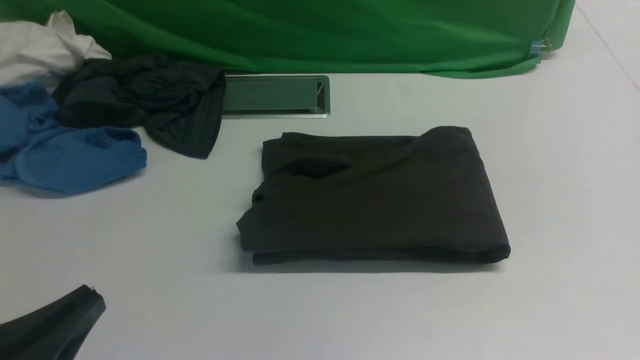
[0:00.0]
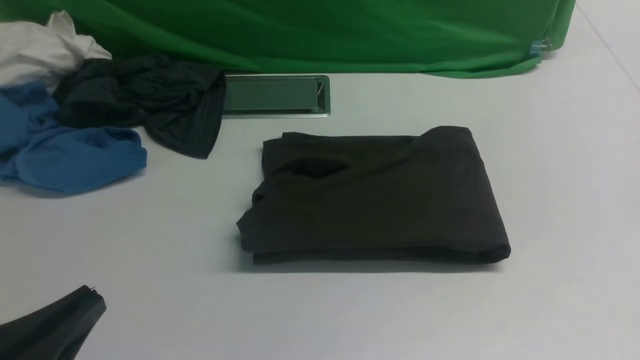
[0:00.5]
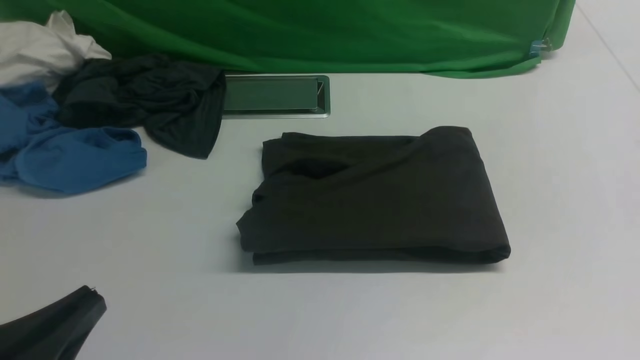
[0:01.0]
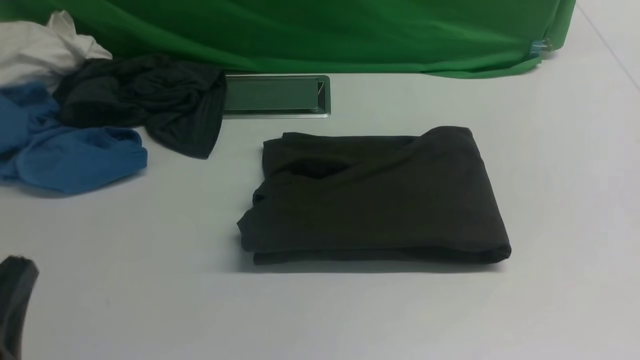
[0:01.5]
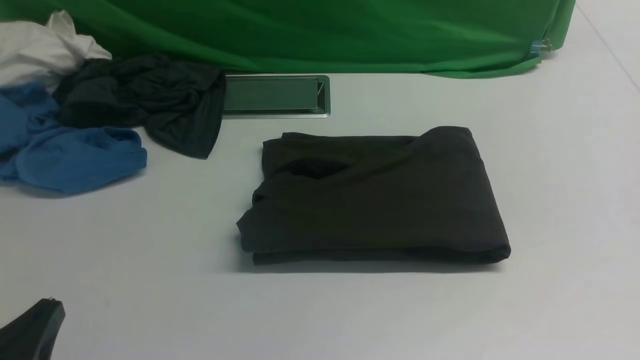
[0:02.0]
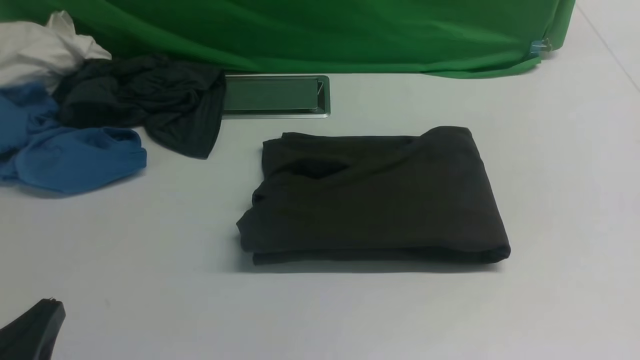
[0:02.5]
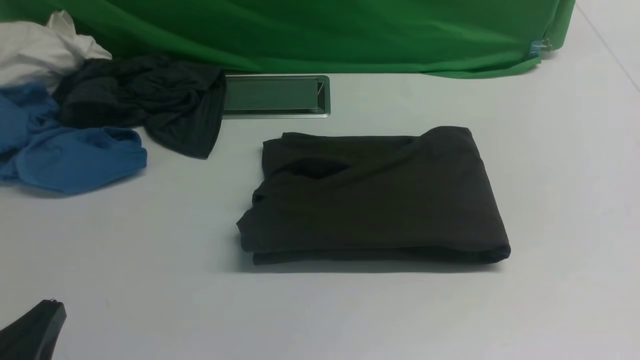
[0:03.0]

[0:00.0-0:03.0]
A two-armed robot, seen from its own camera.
0:00.0 to 0:01.5: The grippers move only a little.
0:01.5 to 0:03.0: The grippers move only a little.

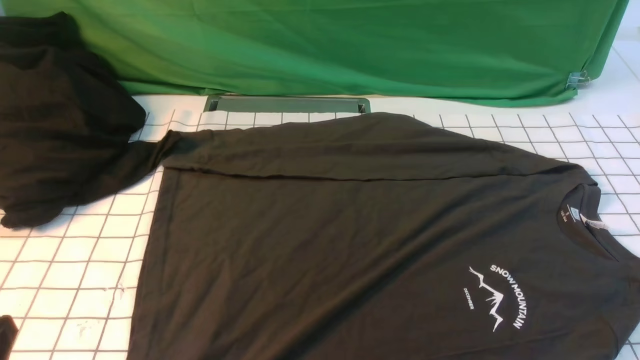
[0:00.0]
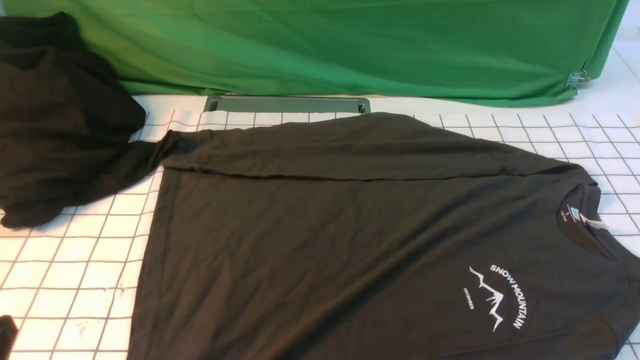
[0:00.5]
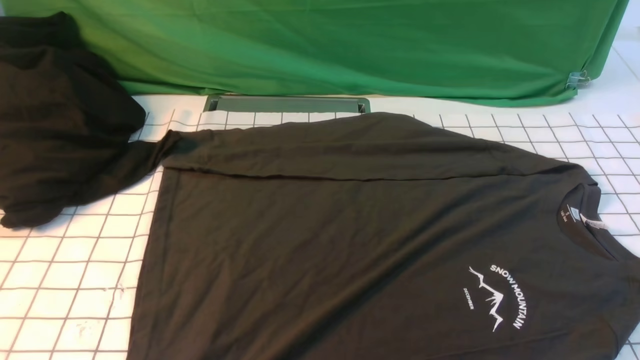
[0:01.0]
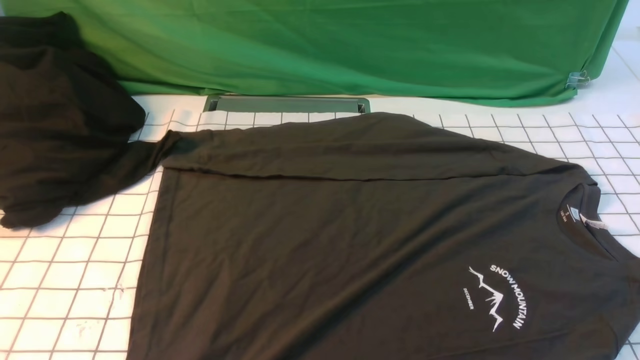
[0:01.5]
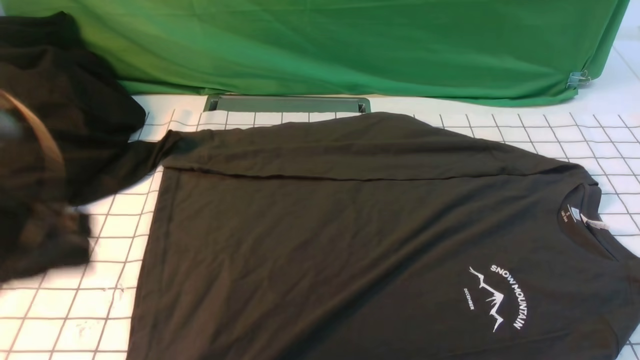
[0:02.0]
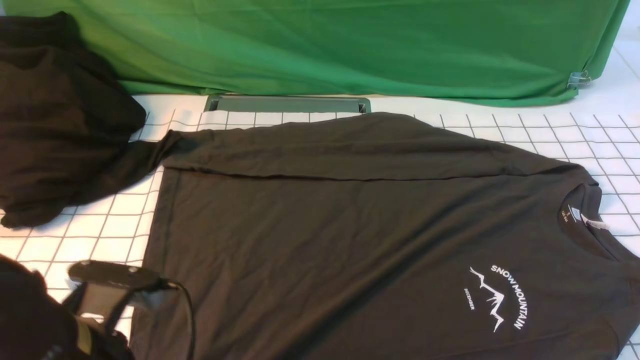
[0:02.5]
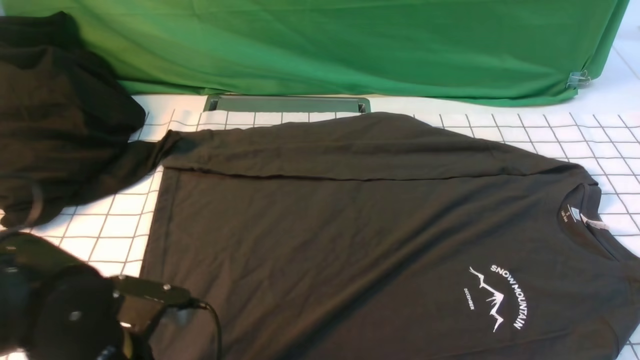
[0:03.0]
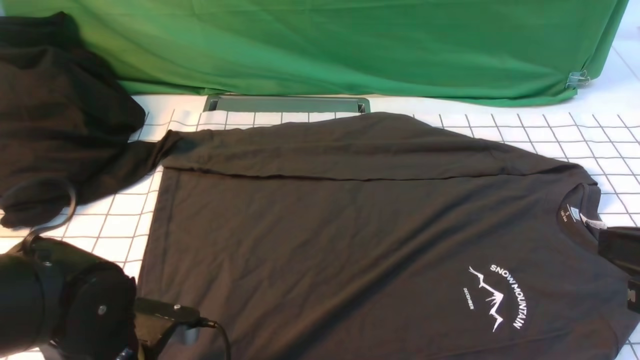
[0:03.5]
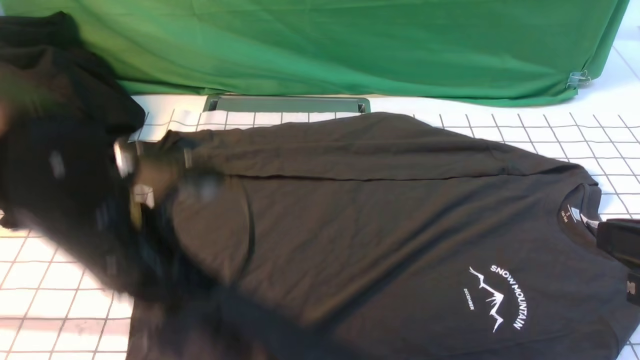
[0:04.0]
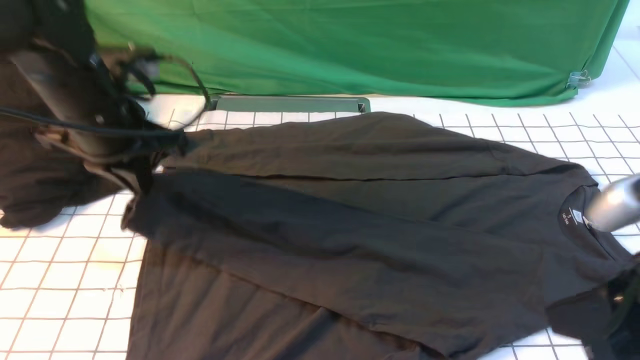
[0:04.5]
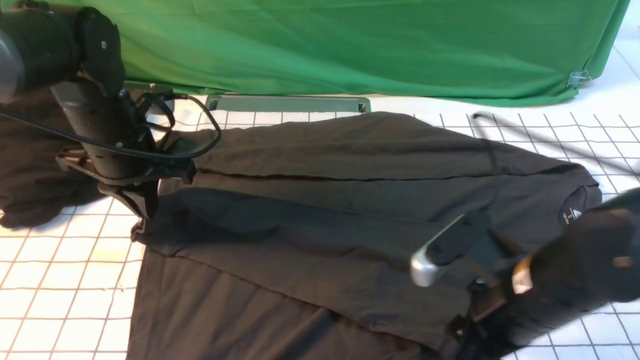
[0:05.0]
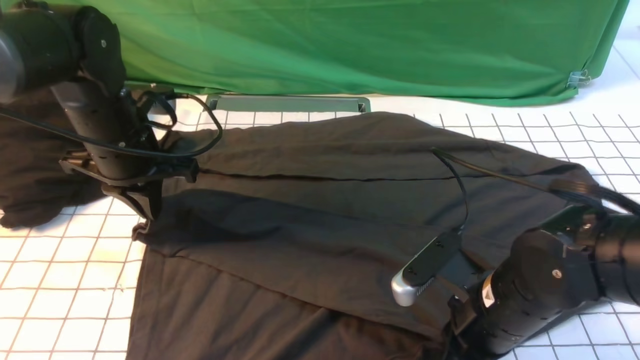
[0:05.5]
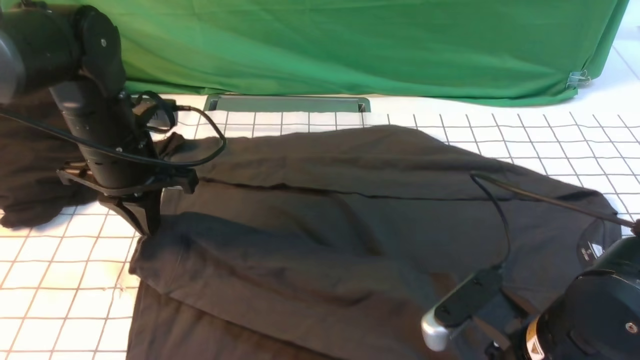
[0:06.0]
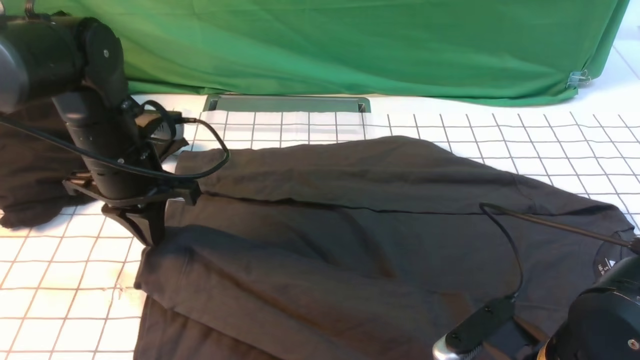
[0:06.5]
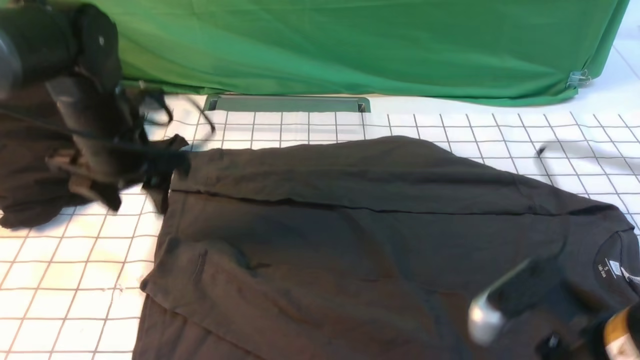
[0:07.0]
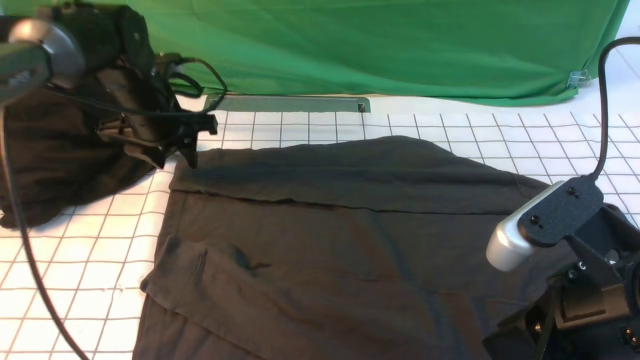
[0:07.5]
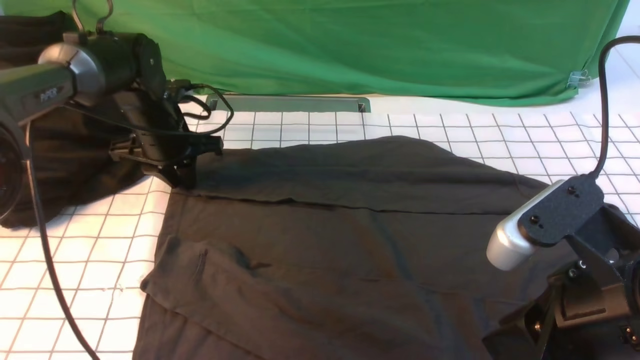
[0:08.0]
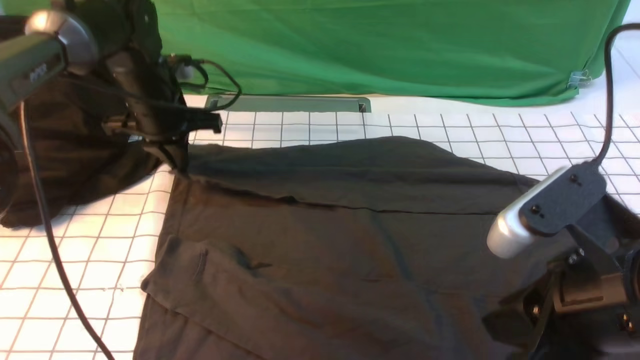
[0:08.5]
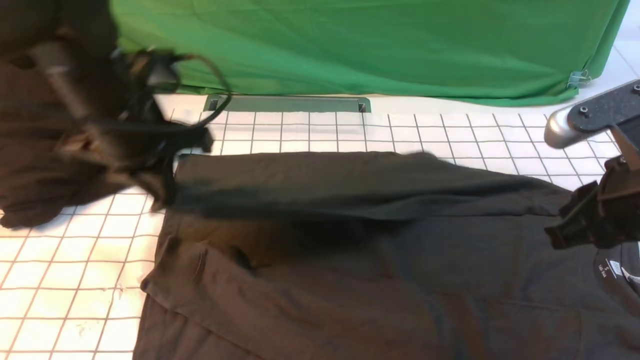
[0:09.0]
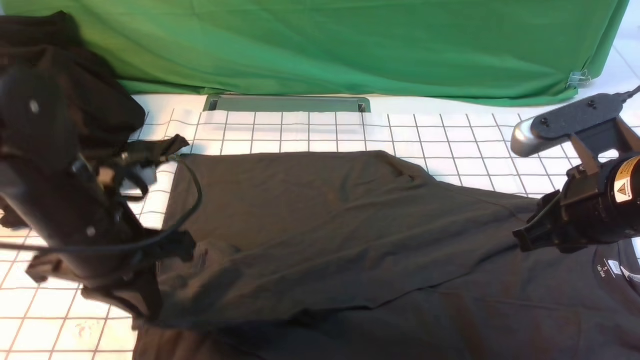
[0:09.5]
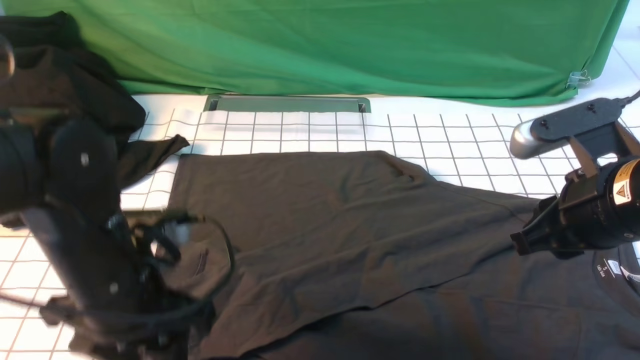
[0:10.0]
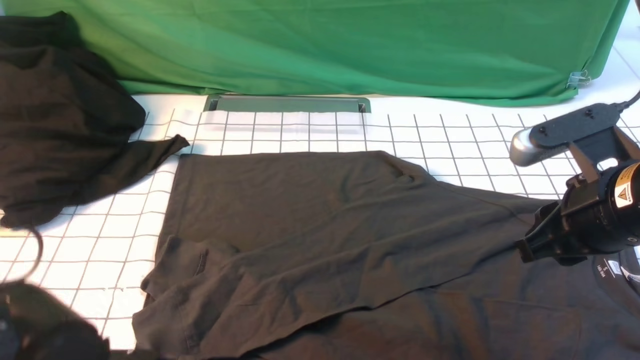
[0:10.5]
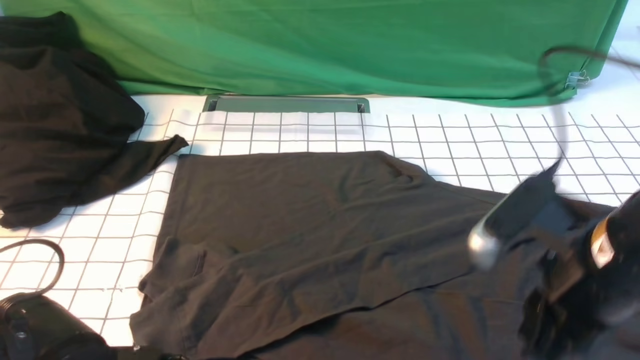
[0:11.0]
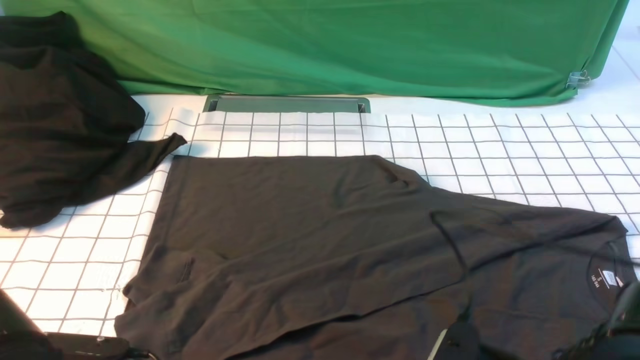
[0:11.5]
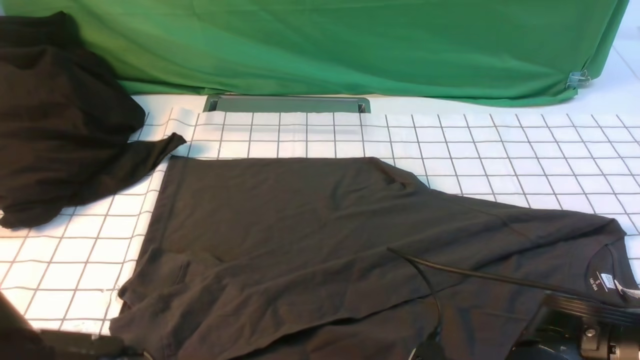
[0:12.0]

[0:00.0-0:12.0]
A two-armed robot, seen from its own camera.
Step, 0:00.0 to 0:03.5: use the left arm to clamp the cuff closest to it.
Step, 0:04.0 to 0:06.5: use the left arm to drag and place the cuff at the centered position on the left edge of the fabric.
Step, 0:07.0 to 0:08.0: use the left arm to clamp the cuff farthest from it.
Step, 0:08.5 to 0:10.0: use the left arm to drag and drop the cuff onto the cuff closest to the left arm.
0:00.0 to 0:02.0: The left gripper moves forward and upward, some 15 cm.
0:02.0 to 0:04.0: The left gripper shifts approximately 10 cm to the right and forward, reaches about 15 cm downward, then returns, and opens and closes again; the right gripper heads upward, forward and to the left, covering roughly 15 cm, and closes.
0:04.0 to 0:06.0: The right gripper heads downward and to the left, covering some 15 cm, and opens, then closes once more; the left gripper travels forward and to the left by approximately 15 cm.
0:06.0 to 0:08.0: The left gripper is displaced forward and downward by approximately 10 cm, and opens up, while the right gripper is displaced upward by some 10 cm.
0:08.0 to 0:10.0: The left gripper is displaced backward by approximately 25 cm, and opens its fingers. Meanwhile the right gripper moves forward, approximately 10 cm.
0:10.0 to 0:12.0: The right gripper travels backward, downward and to the left by approximately 20 cm, and opens, then closes once more; the left gripper shifts approximately 10 cm backward, and closes.

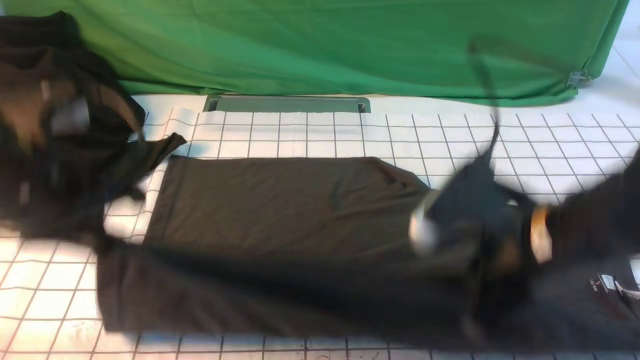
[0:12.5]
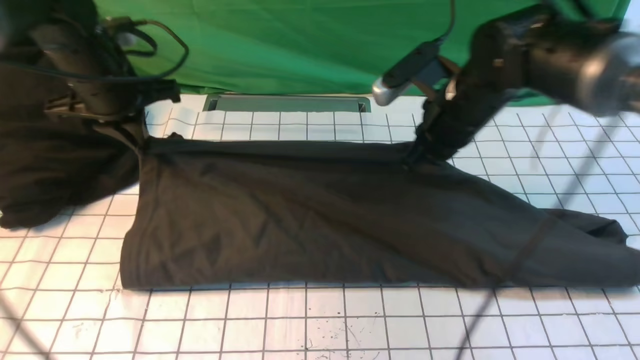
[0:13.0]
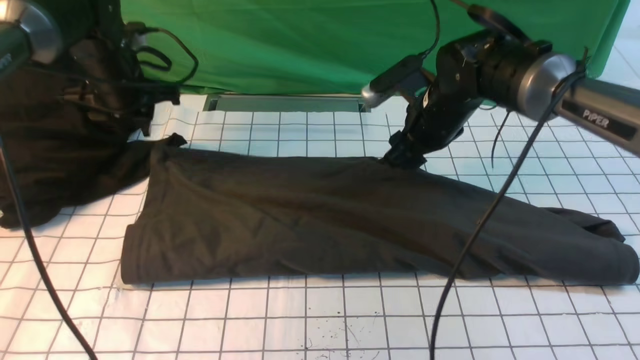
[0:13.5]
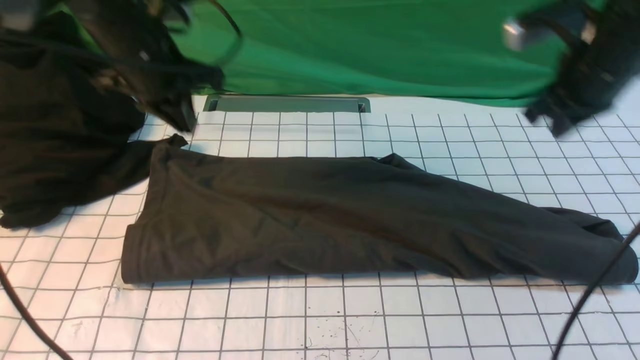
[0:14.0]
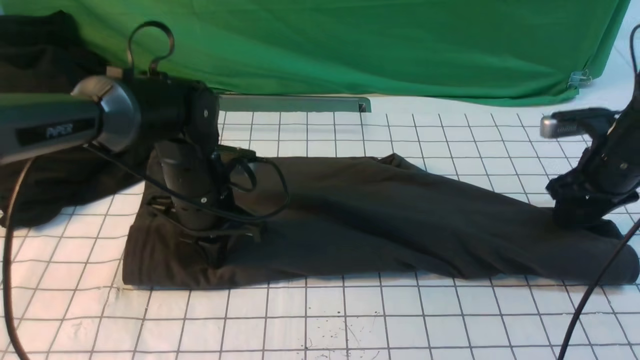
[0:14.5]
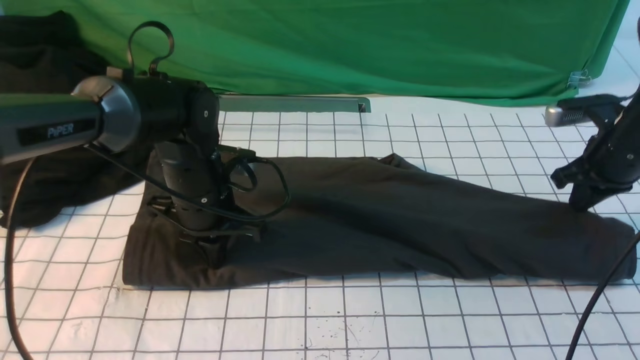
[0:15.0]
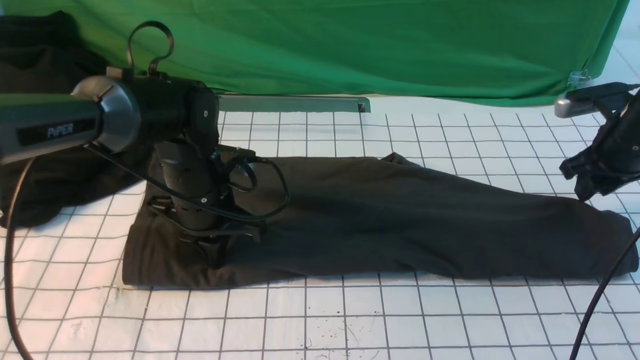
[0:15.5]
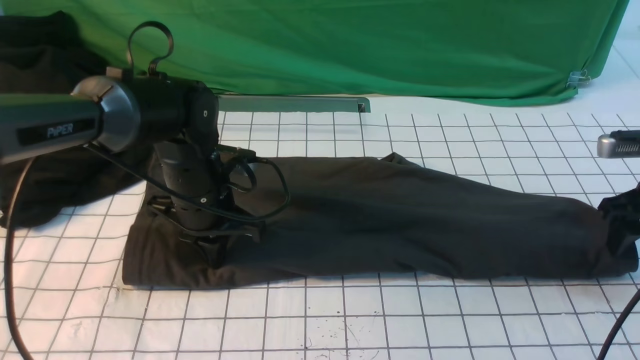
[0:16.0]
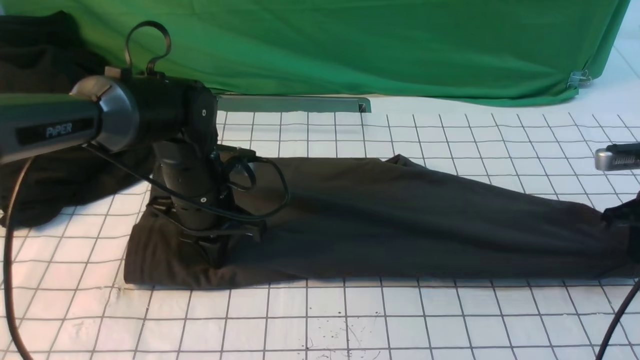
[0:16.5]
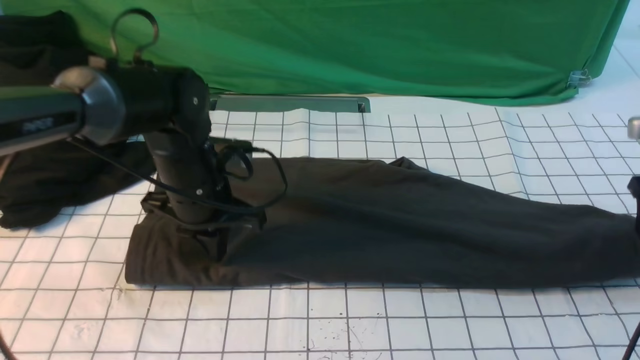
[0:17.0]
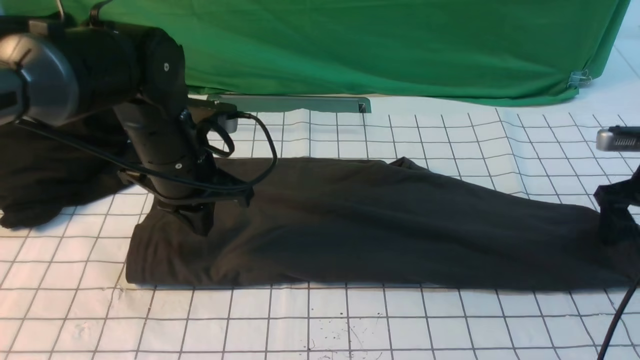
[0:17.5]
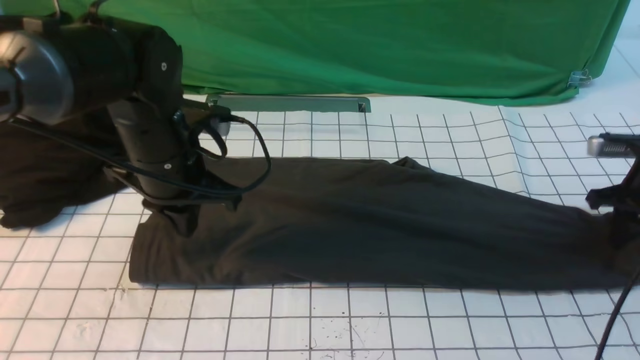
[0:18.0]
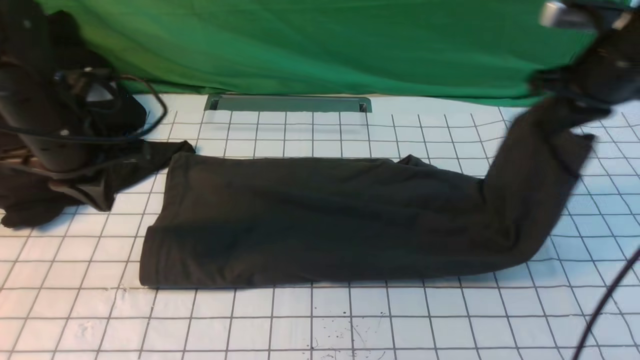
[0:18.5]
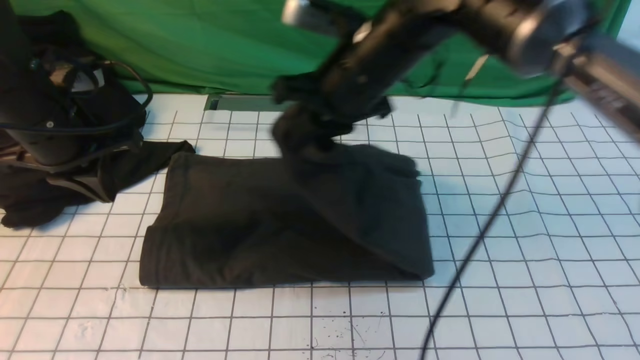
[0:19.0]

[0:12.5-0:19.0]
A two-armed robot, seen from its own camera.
Step, 0:12.5 to 0:13.5: use both arms to drag the lower edge of the fabric forward and fold it over the upper edge.
Step, 0:14.0 to 0:18.0: use the right arm to clamp the right edge of the fabric.
0:12.5 to 0:14.5: The right gripper heads to the right, forward and downward, covering some 25 cm, and opens its fingers; the left gripper shifts approximately 20 cm downward, forward and to the right, and opens and closes again.
0:14.5 to 0:17.0: The right gripper heads to the right, covering approximately 5 cm, and opens its fingers.
0:17.0 to 0:19.0: The right gripper shifts approximately 35 cm to the left, and closes. The left gripper shifts approximately 15 cm to the left and upward.
